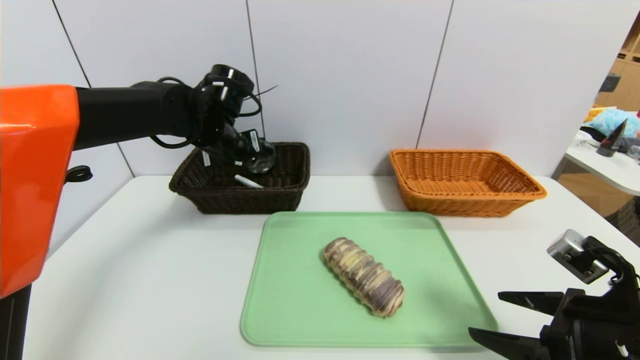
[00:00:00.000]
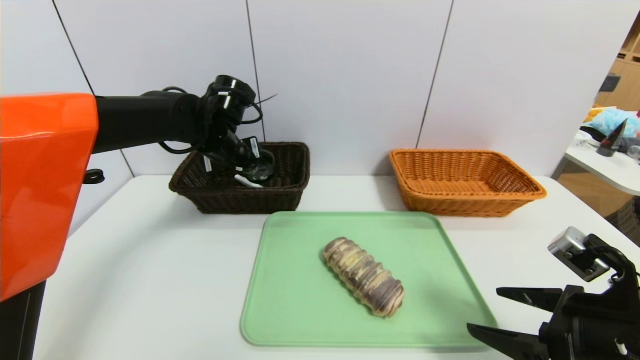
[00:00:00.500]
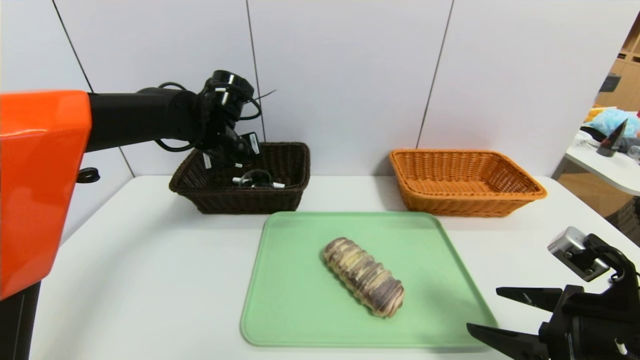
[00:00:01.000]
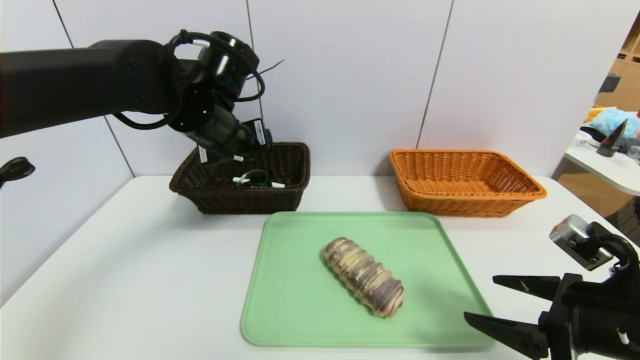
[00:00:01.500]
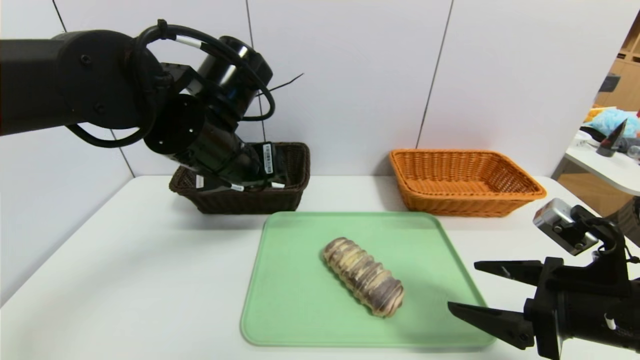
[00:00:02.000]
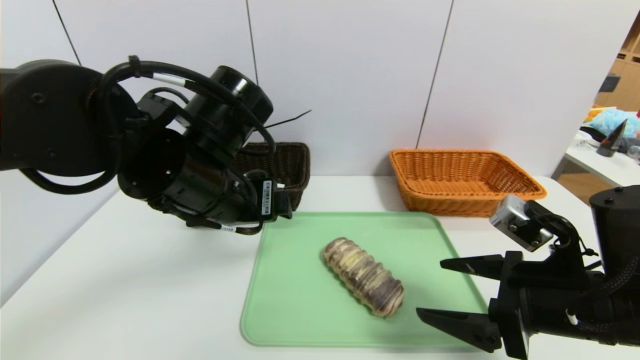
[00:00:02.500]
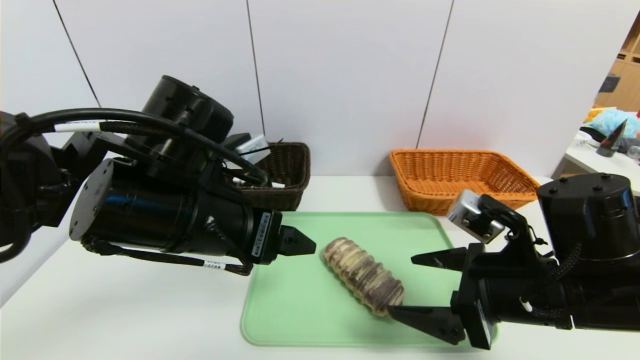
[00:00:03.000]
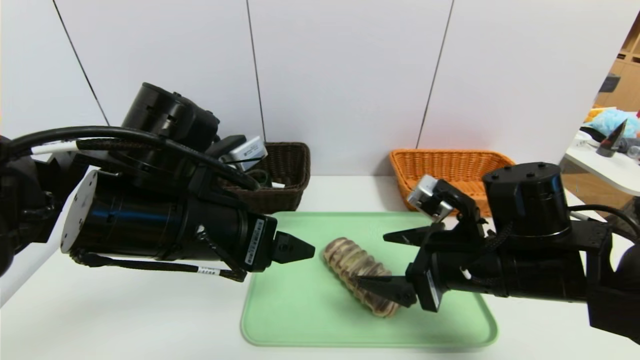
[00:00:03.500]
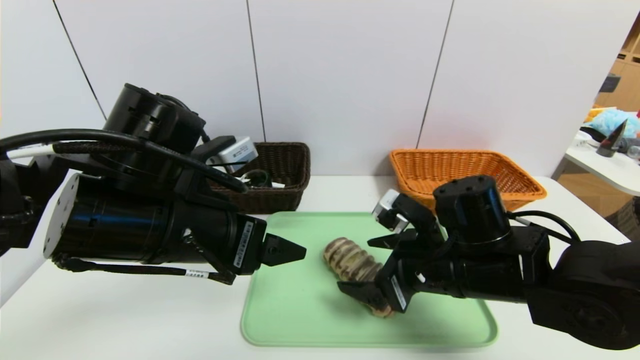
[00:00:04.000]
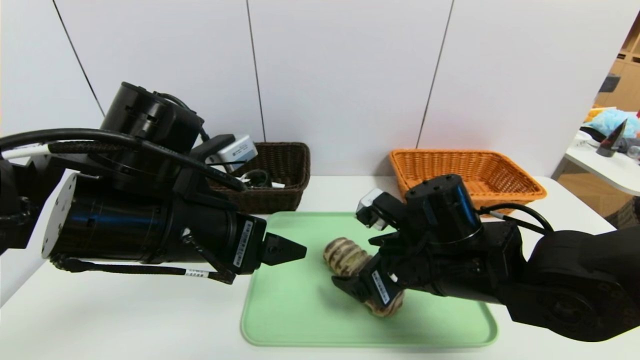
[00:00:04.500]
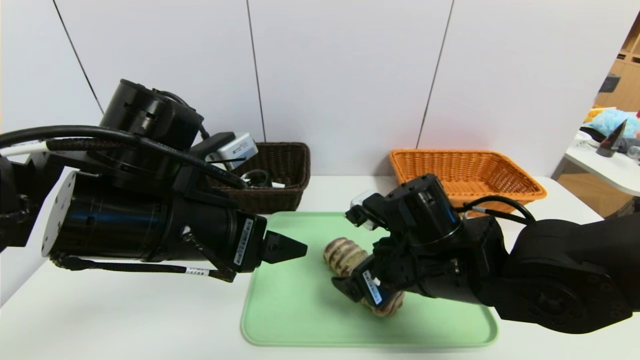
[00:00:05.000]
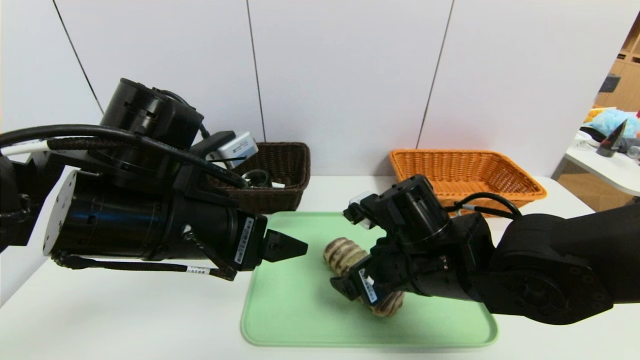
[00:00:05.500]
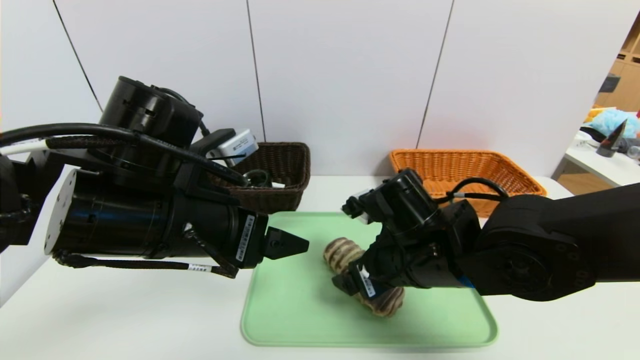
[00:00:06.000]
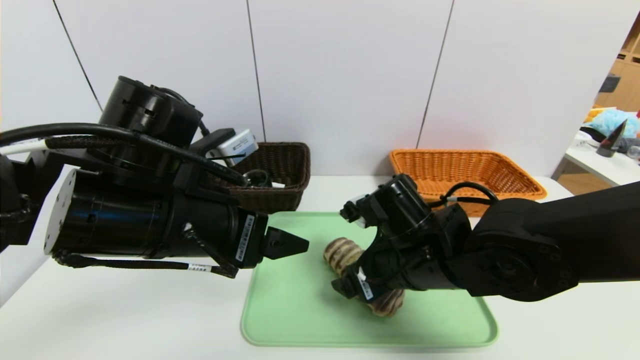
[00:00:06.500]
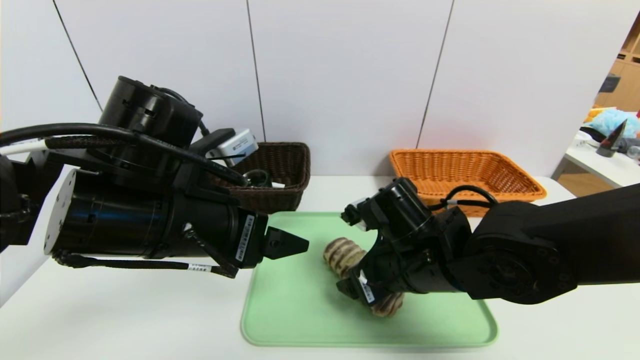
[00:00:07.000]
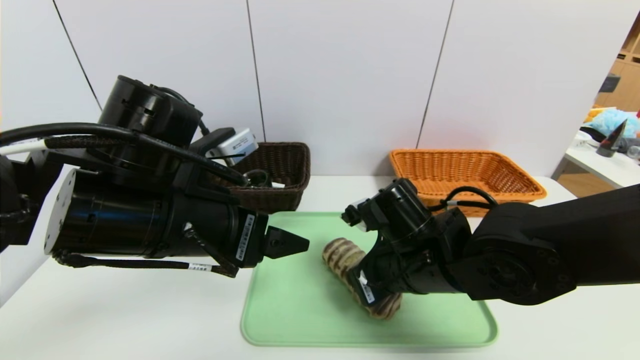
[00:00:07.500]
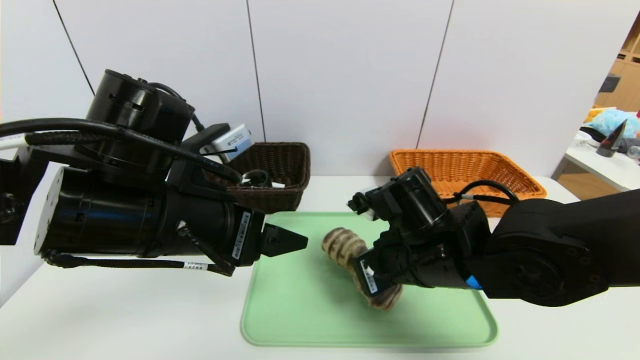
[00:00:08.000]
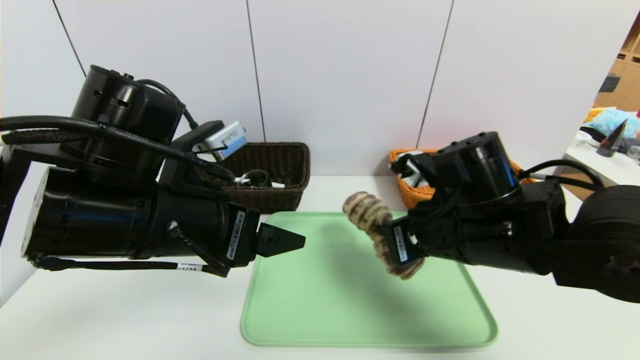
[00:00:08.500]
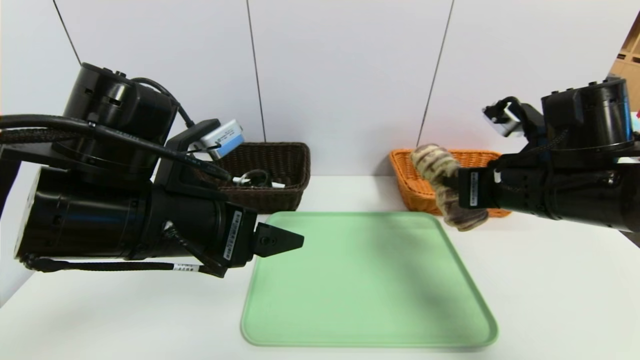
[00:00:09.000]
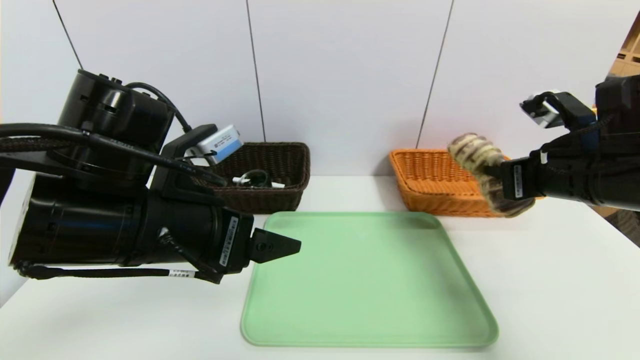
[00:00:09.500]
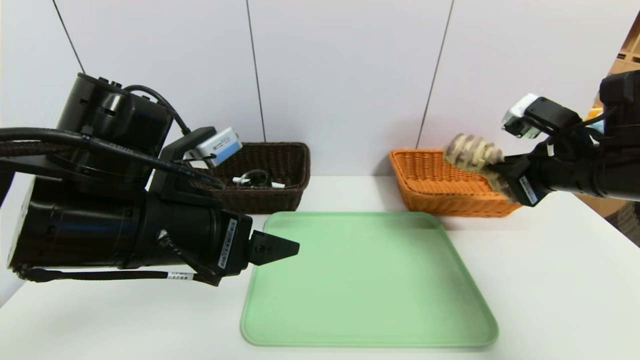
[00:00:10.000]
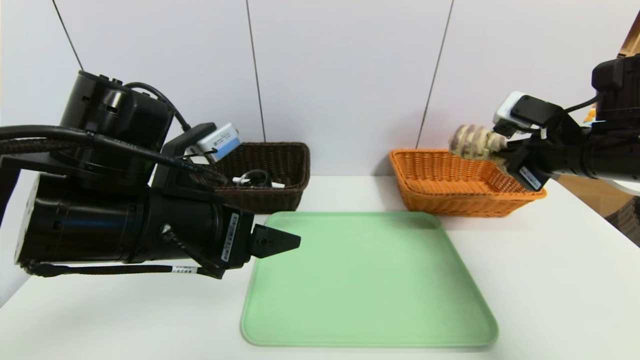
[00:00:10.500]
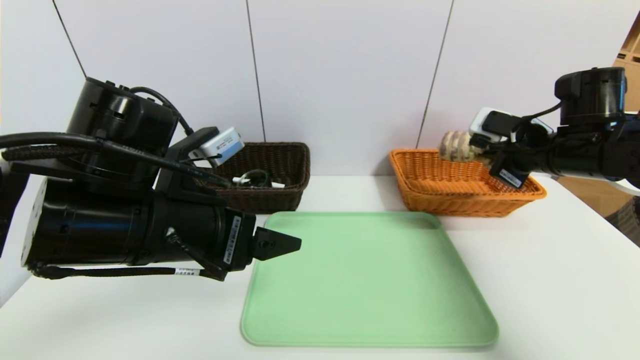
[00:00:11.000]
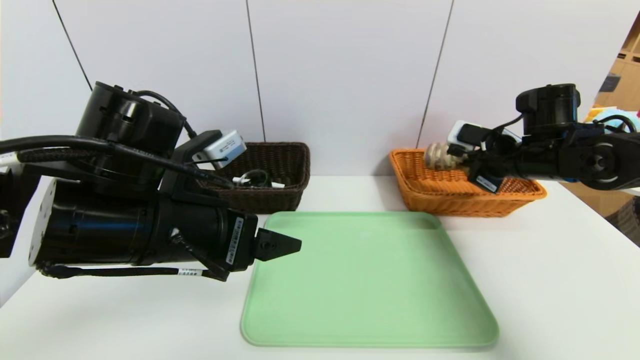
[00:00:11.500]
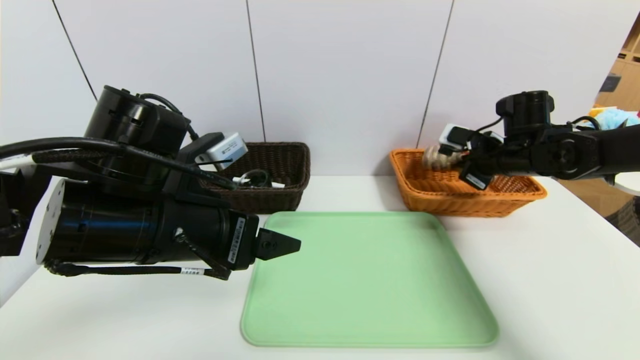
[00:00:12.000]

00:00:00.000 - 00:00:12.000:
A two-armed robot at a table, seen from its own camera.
Task of the whole recording: place the food in the right basket with the right gripper, and place the non food items in the left basket with the left gripper.
00:00:00.000 - 00:00:02.000: The left gripper heads backward, covering about 10 cm, and opens its fingers.
00:00:02.000 - 00:00:04.000: The right gripper goes some 15 cm to the left and forward; the left gripper goes roughly 10 cm backward.
00:00:06.000 - 00:00:08.000: The right gripper closes up.
00:00:08.000 - 00:00:10.000: The right gripper goes roughly 20 cm to the right and upward.
00:00:10.000 - 00:00:12.000: The right gripper shifts about 15 cm forward and downward.

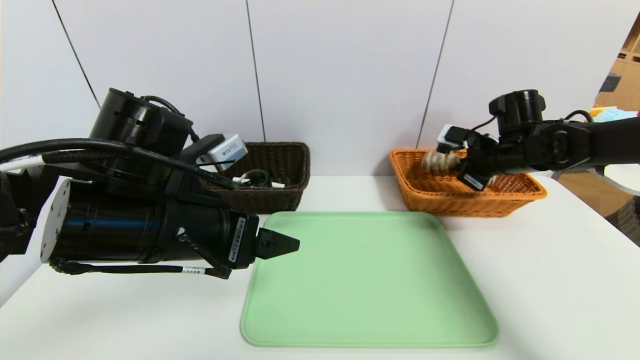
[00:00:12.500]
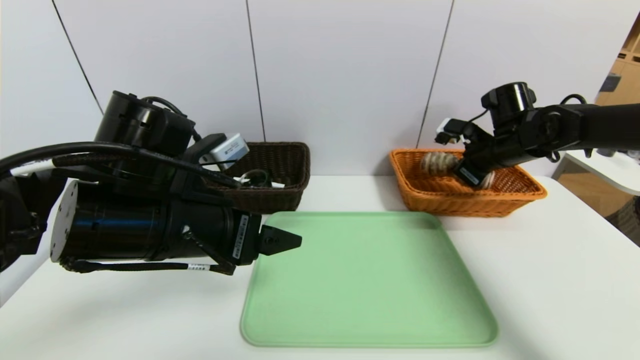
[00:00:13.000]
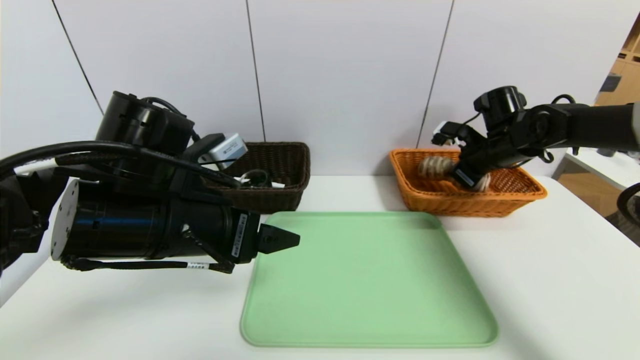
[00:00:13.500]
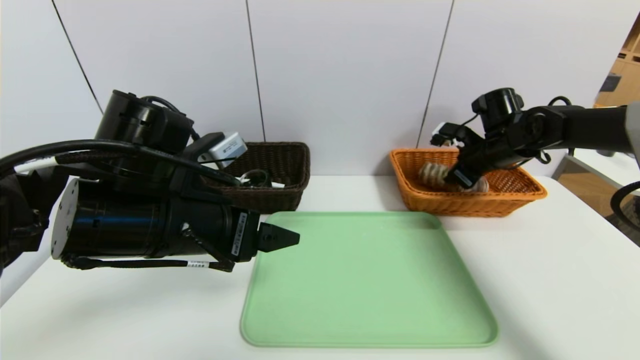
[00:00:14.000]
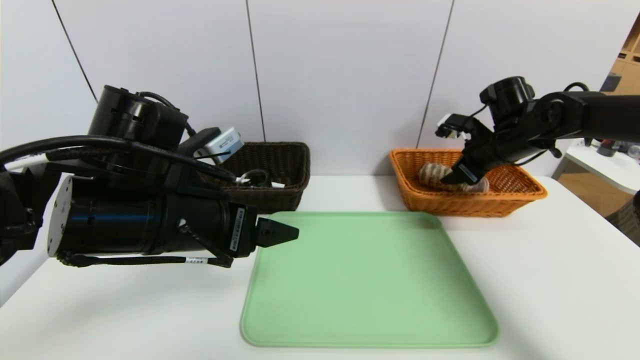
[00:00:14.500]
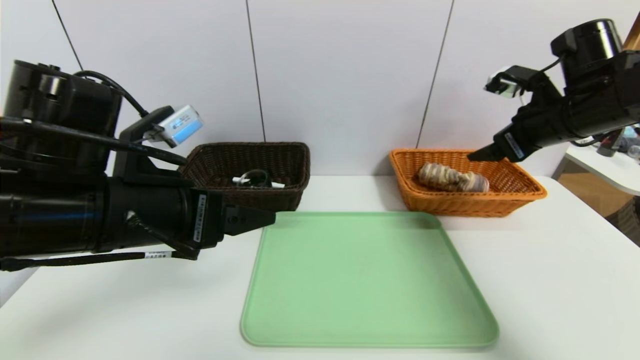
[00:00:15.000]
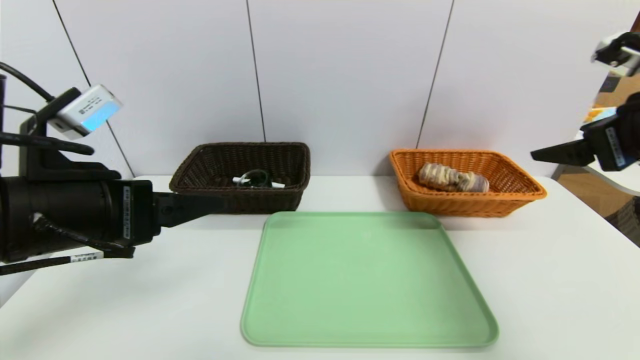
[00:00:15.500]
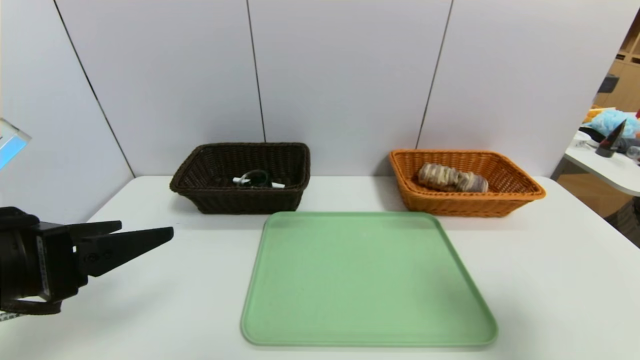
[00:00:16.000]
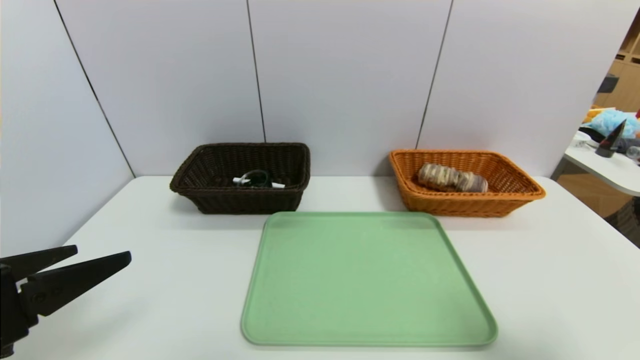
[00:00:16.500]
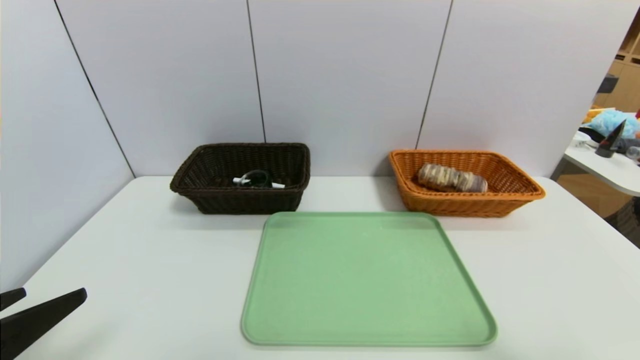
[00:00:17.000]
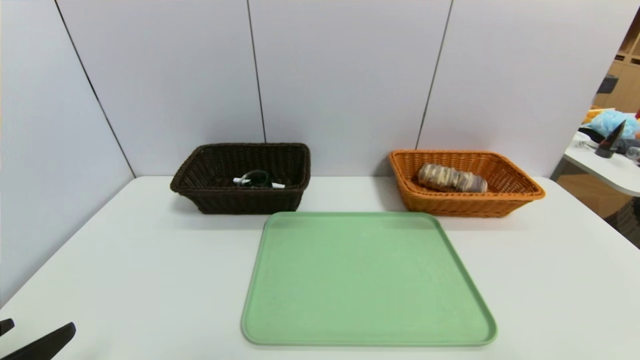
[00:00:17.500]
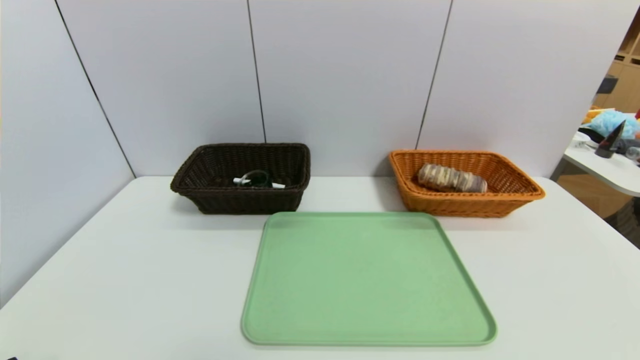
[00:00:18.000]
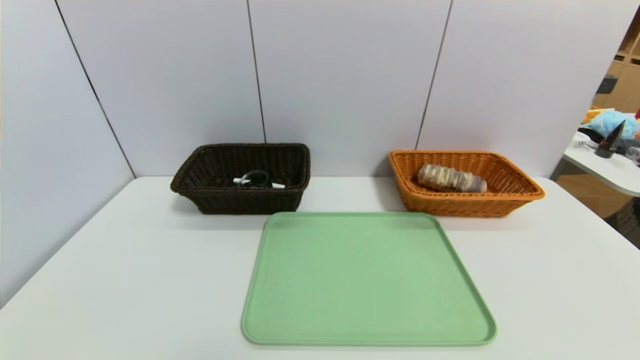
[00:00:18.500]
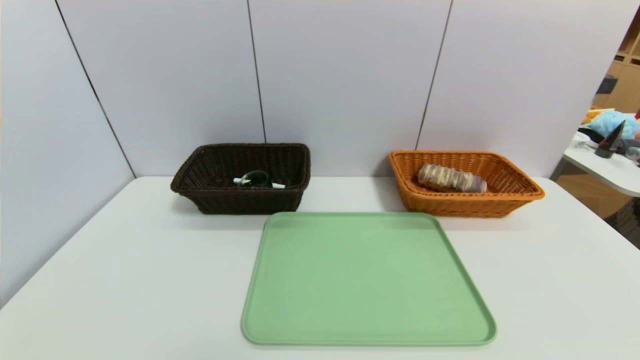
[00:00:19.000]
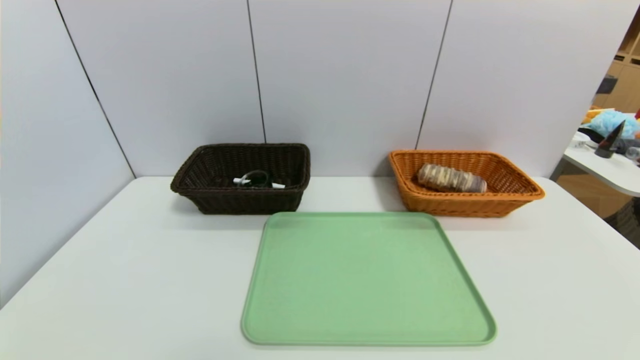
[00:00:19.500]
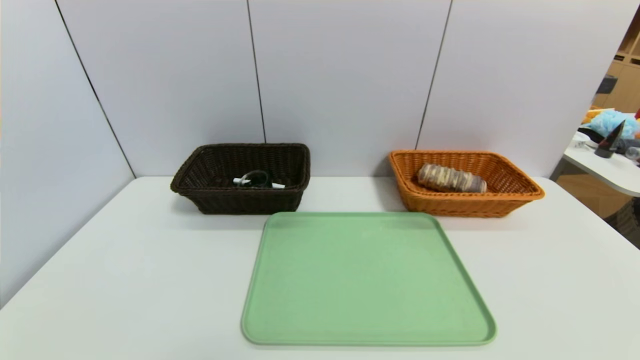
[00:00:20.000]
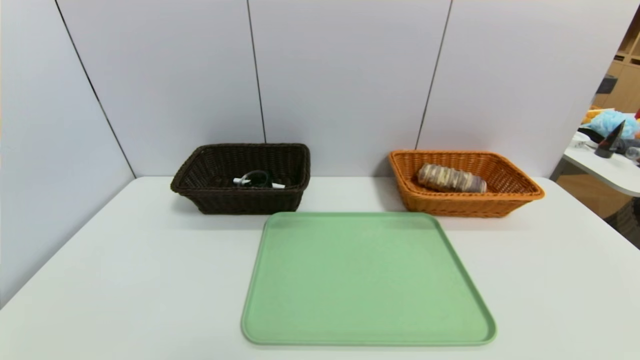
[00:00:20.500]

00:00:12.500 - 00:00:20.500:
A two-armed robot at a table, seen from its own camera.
Task of the whole recording: place the food in the right basket with the right gripper, and place the non food items in the left basket with the left gripper.
00:00:12.500 - 00:00:14.500: The right gripper opens up.
00:00:14.500 - 00:00:16.500: The right gripper heads backward, covering roughly 40 cm. Meanwhile the left gripper is displaced backward and to the left by approximately 20 cm.
00:00:16.500 - 00:00:18.500: Both grippers travel together backward and downward, some 15 cm.
